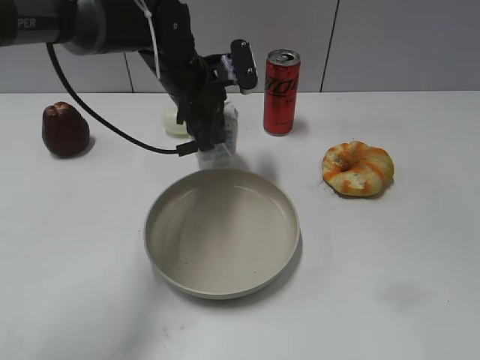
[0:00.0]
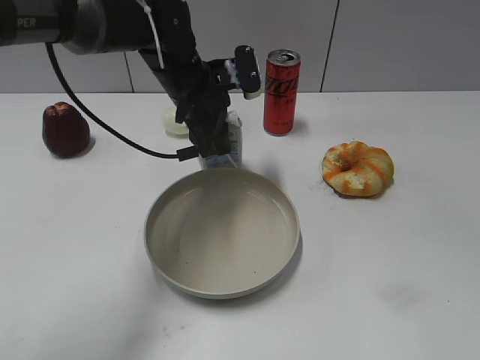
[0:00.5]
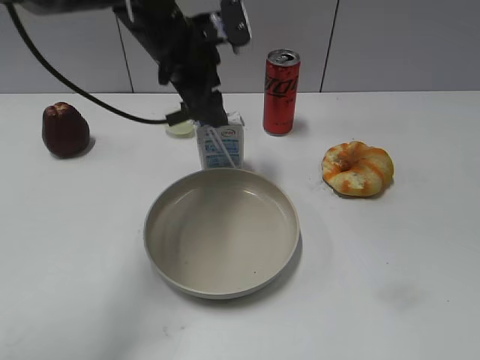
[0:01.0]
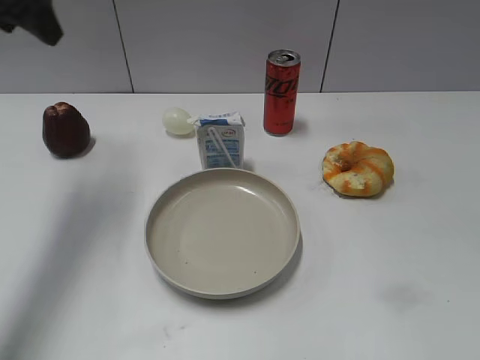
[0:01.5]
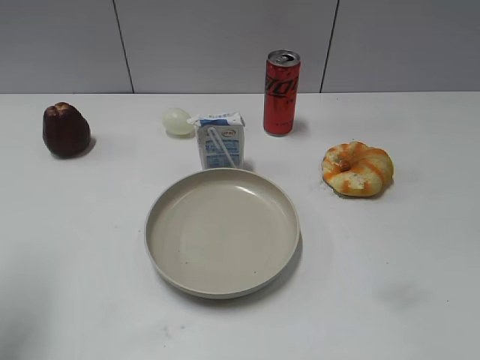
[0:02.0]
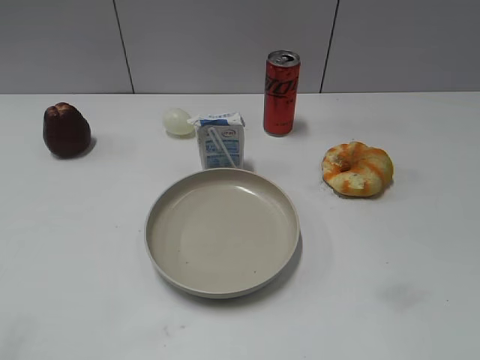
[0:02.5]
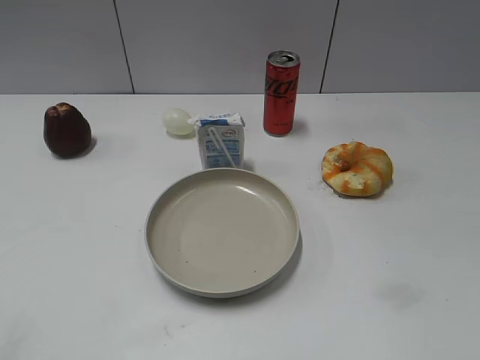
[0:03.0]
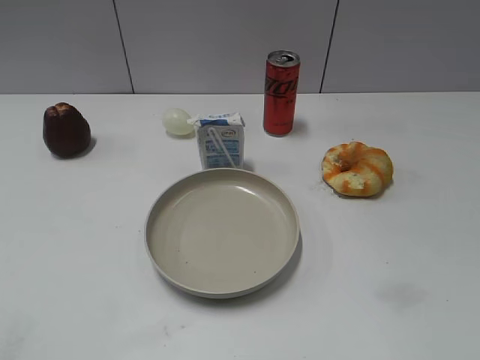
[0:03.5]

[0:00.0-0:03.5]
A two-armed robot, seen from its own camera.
0:00.0 to 0:02.0: The left gripper is displaced to the left, backward and upward by approximately 35 cm, and opens its fingers.
0:02.0 to 0:03.5: The left gripper shifts roughly 20 cm backward.
